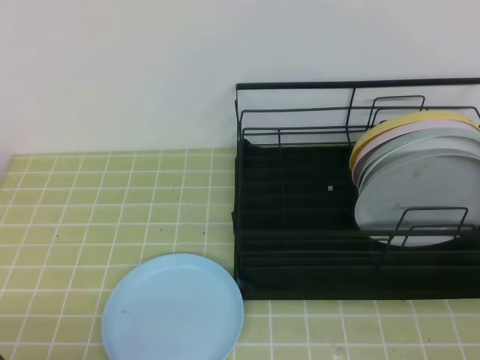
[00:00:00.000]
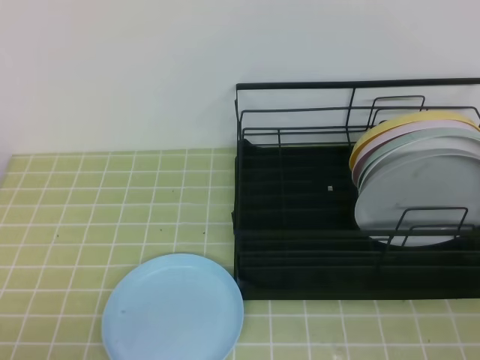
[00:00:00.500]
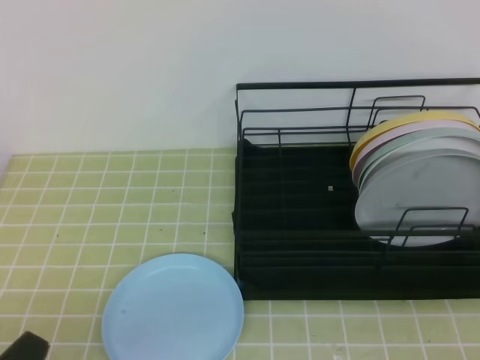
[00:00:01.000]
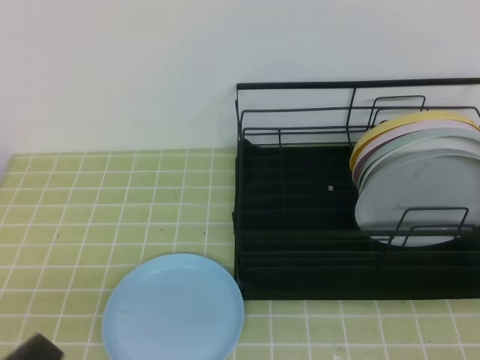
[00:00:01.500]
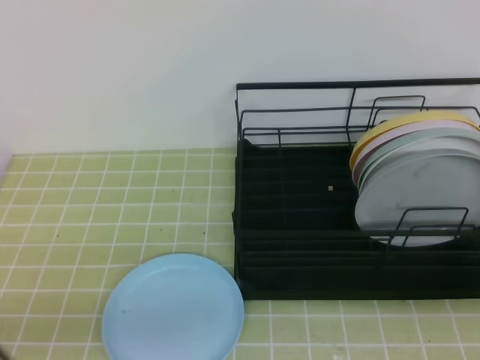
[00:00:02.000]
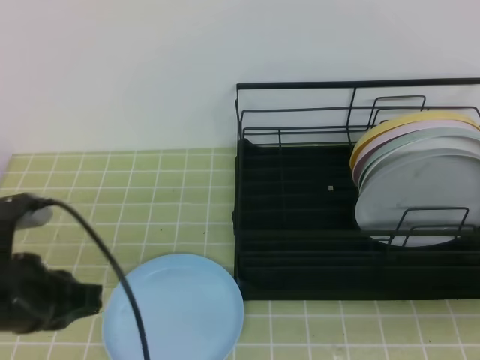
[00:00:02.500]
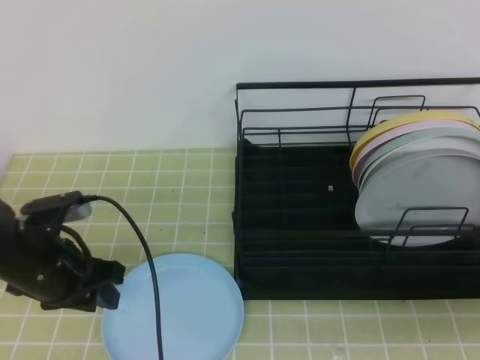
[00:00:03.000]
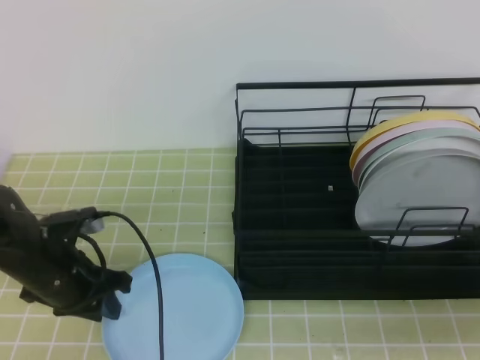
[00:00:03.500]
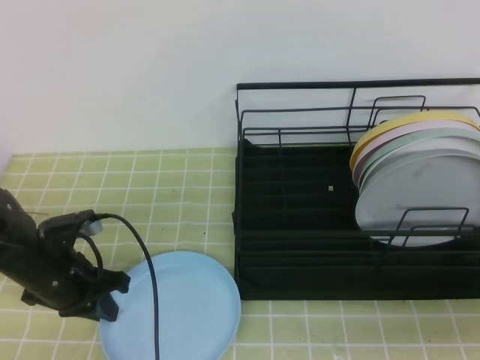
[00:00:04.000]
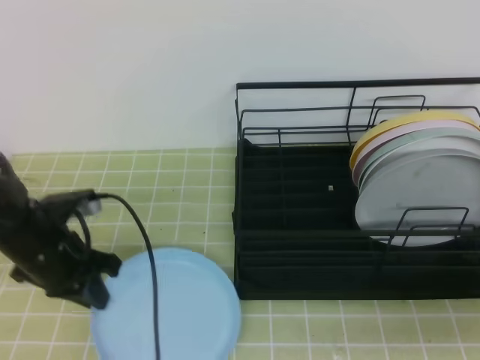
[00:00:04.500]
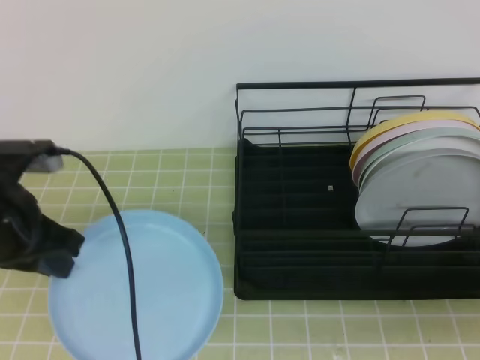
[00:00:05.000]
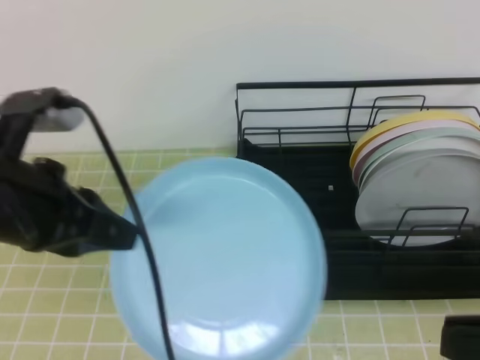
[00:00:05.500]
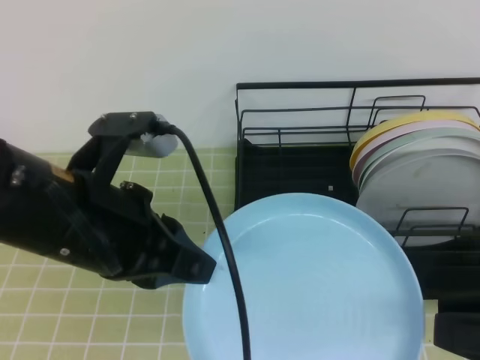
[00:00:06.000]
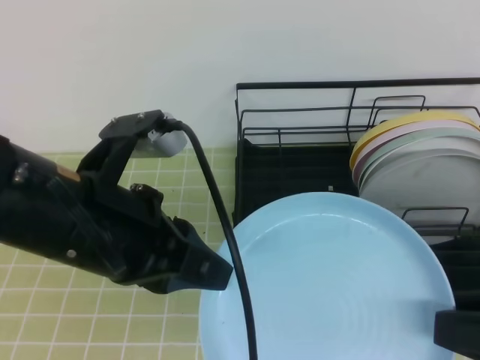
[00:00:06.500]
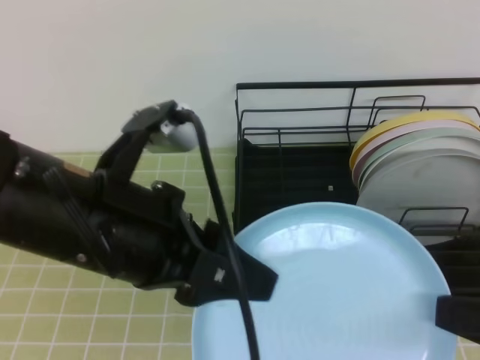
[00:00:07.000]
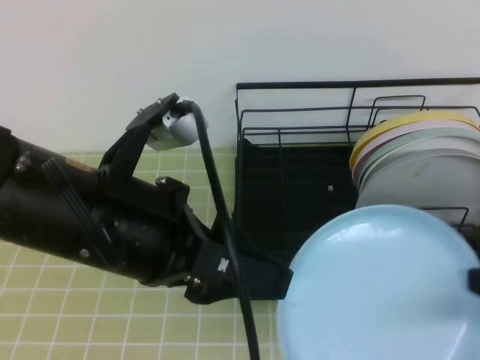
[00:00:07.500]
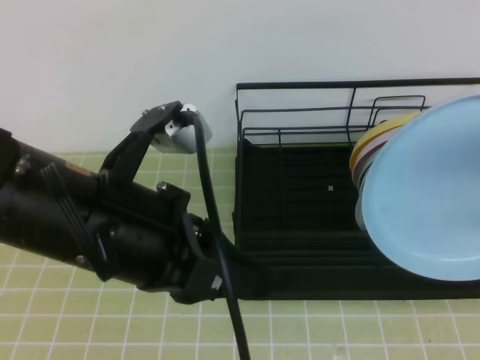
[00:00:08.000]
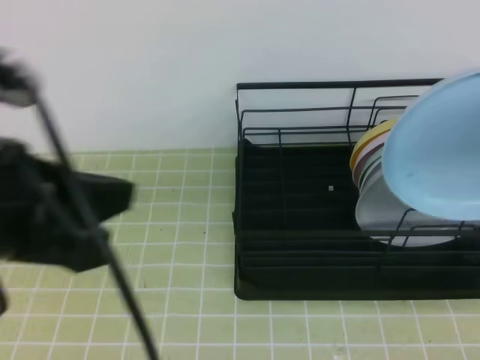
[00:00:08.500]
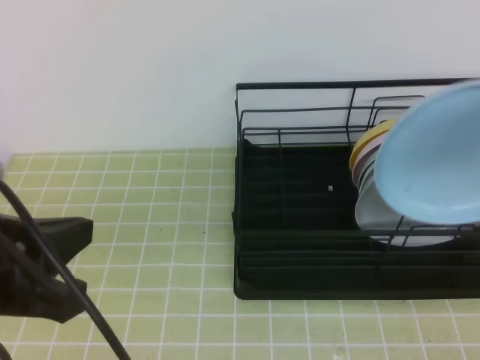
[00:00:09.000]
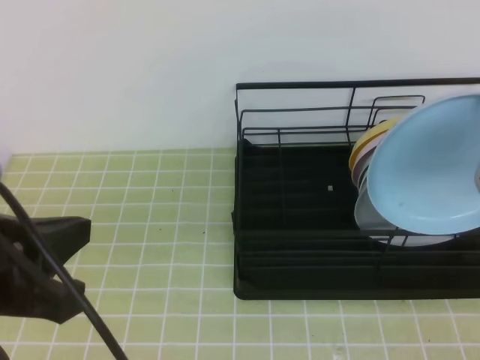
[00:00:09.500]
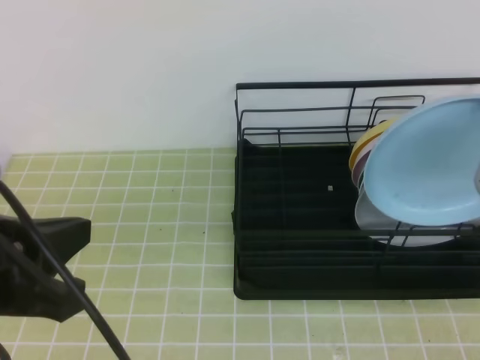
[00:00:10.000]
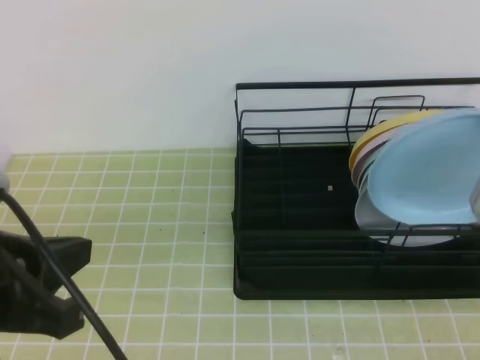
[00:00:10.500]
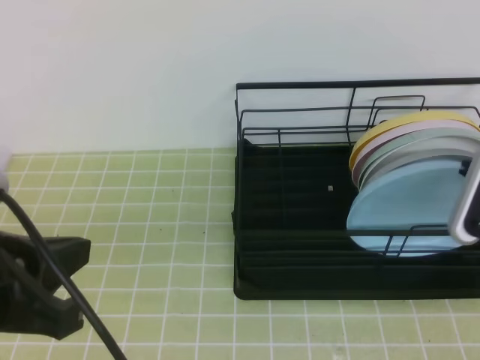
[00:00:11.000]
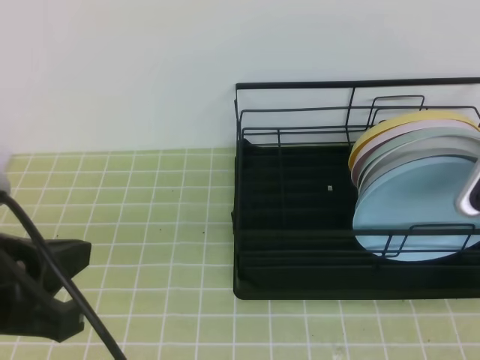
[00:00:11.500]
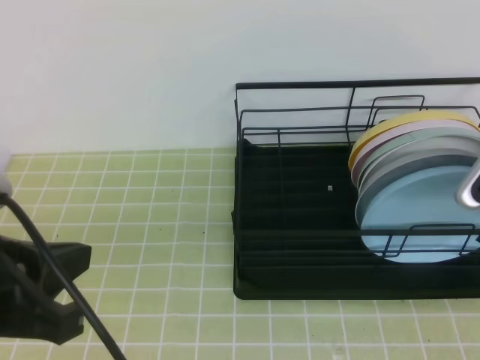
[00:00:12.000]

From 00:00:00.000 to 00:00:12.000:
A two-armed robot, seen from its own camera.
Step, from 00:00:00.000 to 00:00:03.500: Left grab the blue plate.
From 00:00:02.000 to 00:00:04.000: The left gripper is displaced forward and downward by some 25 cm, and opens and closes again.
From 00:00:04.000 to 00:00:06.000: The left gripper travels upward, backward and to the right by about 25 cm. The right gripper opens its fingers.
From 00:00:06.000 to 00:00:08.000: The left gripper opens and closes again. The right gripper shifts some 10 cm upward and forward, and closes its fingers.
From 00:00:08.000 to 00:00:10.000: The right gripper moves forward, about 5 cm. The left gripper moves to the left, roughly 10 cm.
From 00:00:10.000 to 00:00:12.000: The right gripper is displaced downward by roughly 10 cm, and opens up.

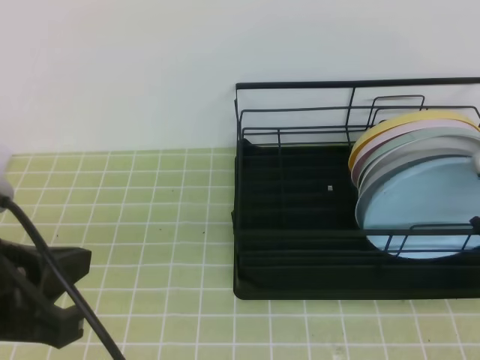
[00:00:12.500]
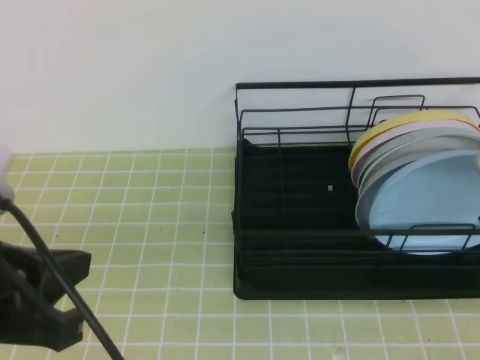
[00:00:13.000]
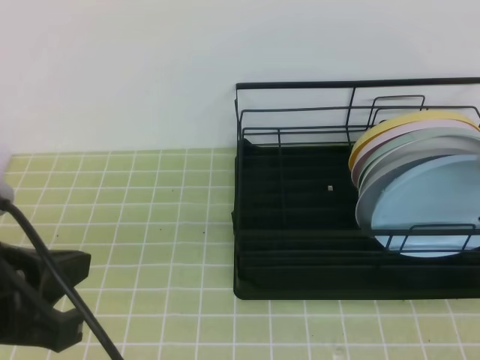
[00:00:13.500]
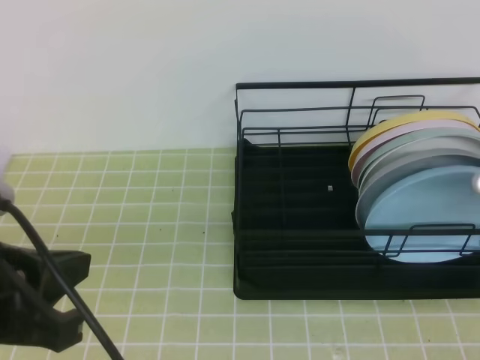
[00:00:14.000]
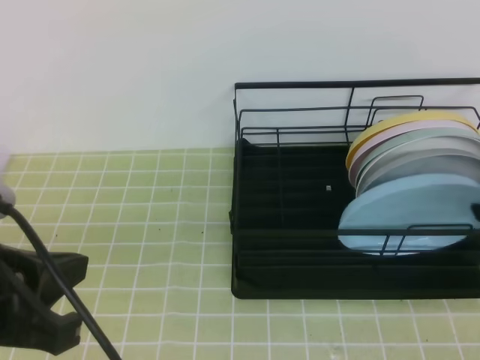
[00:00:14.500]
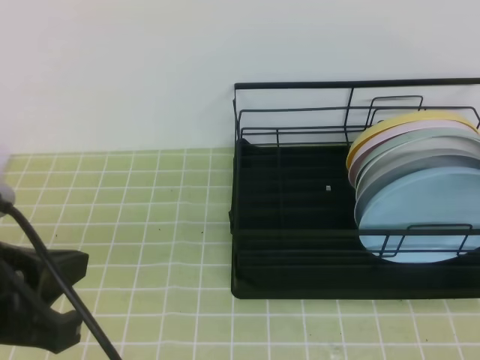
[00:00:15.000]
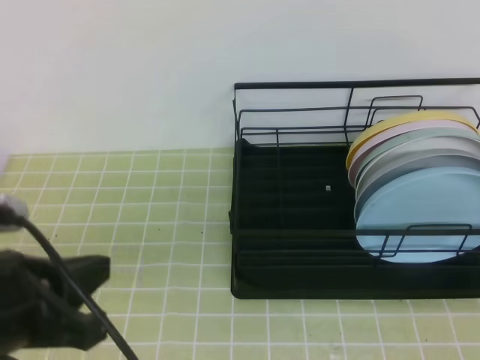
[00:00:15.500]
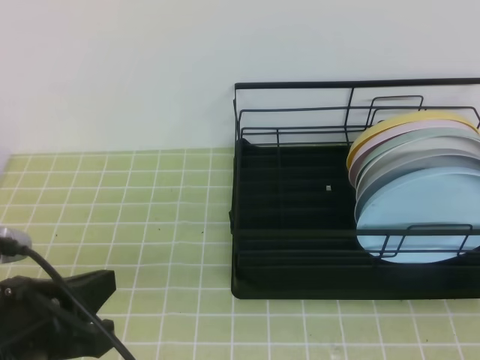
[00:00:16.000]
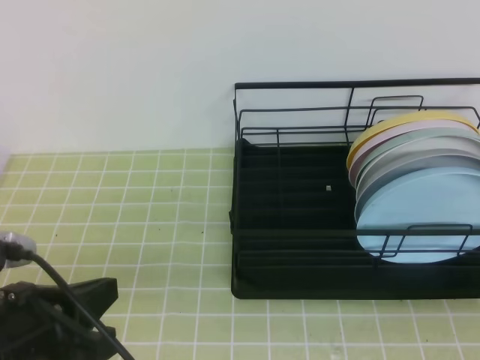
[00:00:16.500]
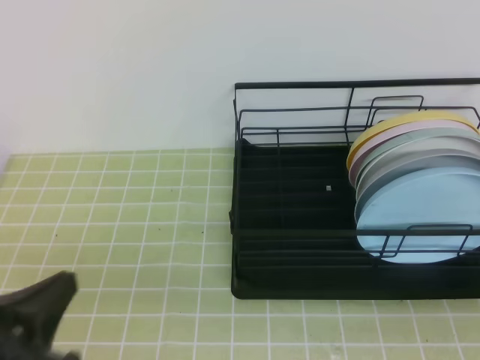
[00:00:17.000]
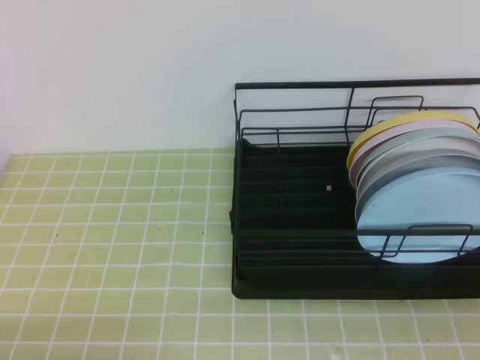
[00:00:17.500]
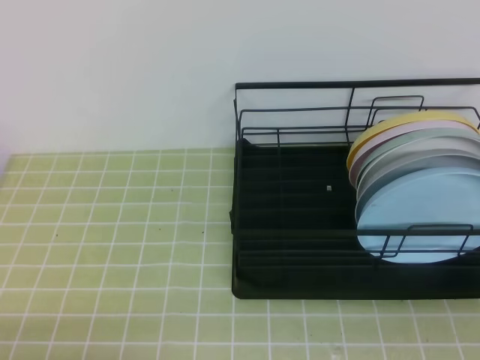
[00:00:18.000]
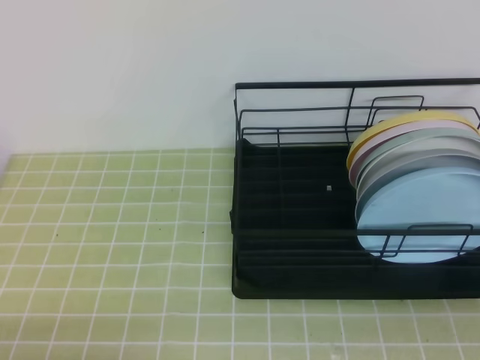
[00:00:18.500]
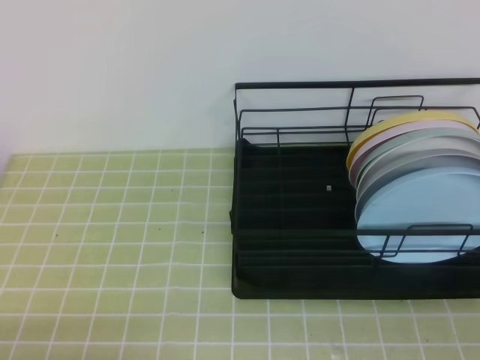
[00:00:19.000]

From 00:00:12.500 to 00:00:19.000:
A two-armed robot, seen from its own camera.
From 00:00:12.500 to 00:00:14.500: The right gripper opens up.
From 00:00:14.500 to 00:00:17.000: The left gripper shifts approximately 10 cm downward. The right gripper travels backward by approximately 15 cm, and closes.
From 00:00:17.000 to 00:00:19.000: The left gripper goes about 10 cm downward and backward.
